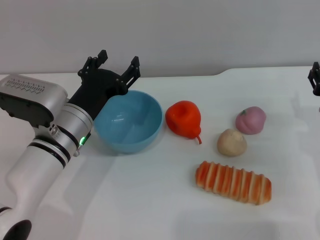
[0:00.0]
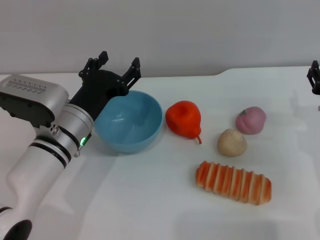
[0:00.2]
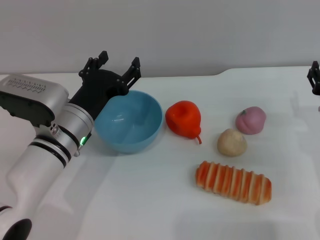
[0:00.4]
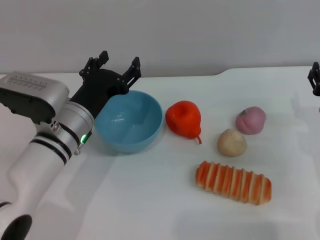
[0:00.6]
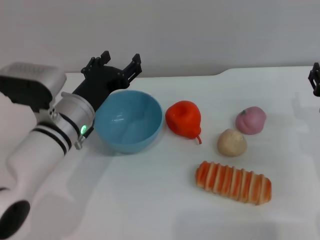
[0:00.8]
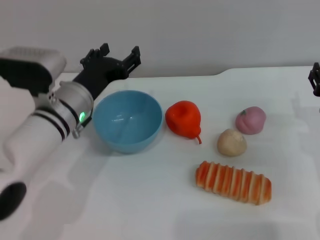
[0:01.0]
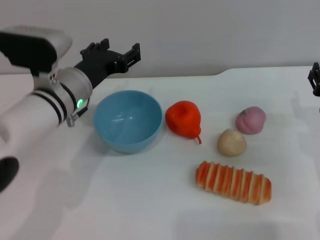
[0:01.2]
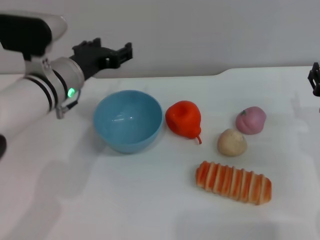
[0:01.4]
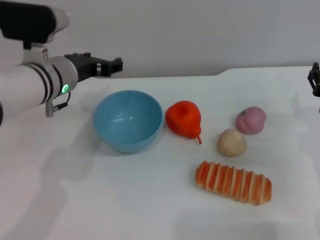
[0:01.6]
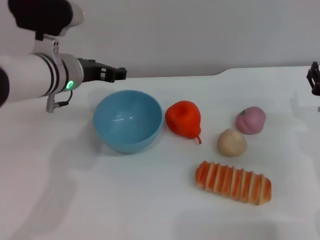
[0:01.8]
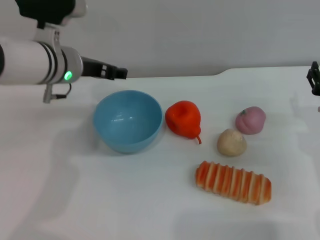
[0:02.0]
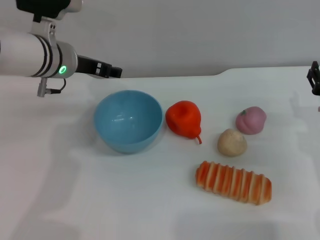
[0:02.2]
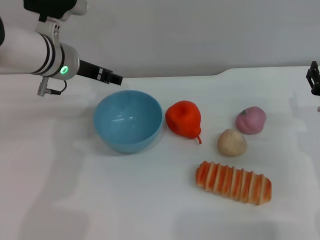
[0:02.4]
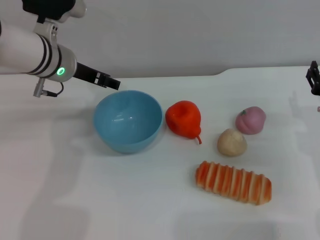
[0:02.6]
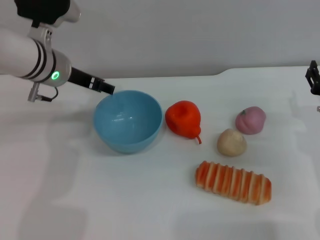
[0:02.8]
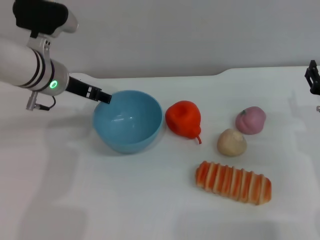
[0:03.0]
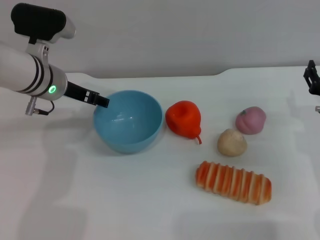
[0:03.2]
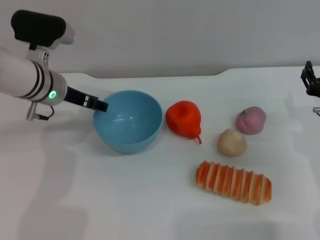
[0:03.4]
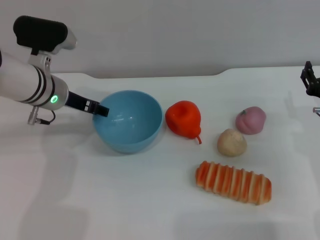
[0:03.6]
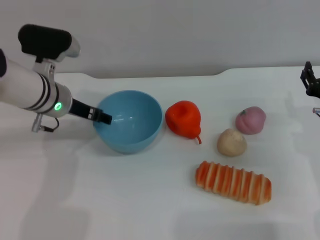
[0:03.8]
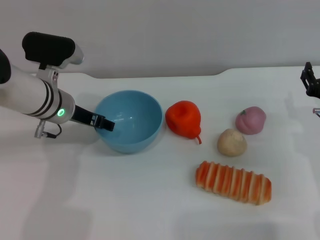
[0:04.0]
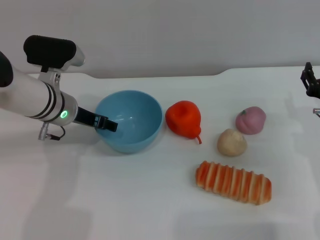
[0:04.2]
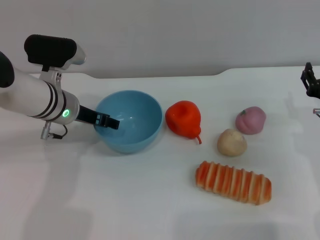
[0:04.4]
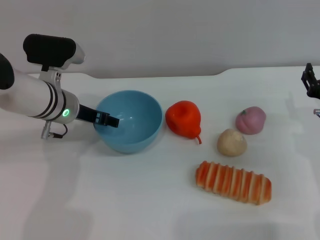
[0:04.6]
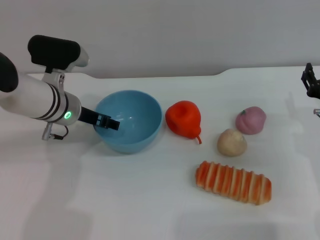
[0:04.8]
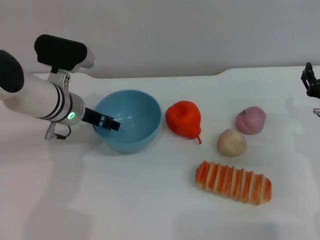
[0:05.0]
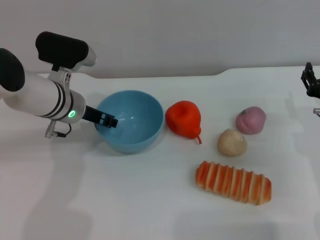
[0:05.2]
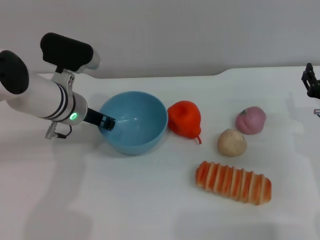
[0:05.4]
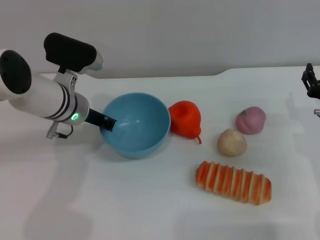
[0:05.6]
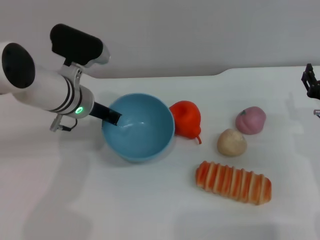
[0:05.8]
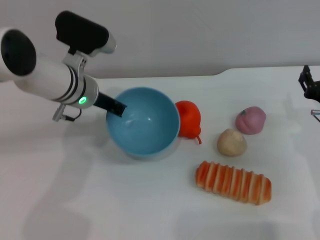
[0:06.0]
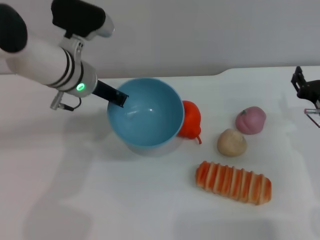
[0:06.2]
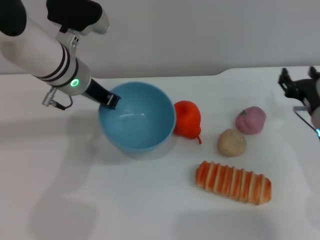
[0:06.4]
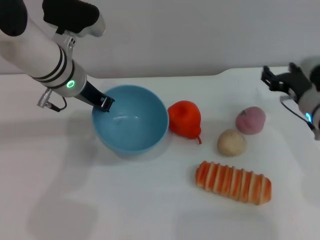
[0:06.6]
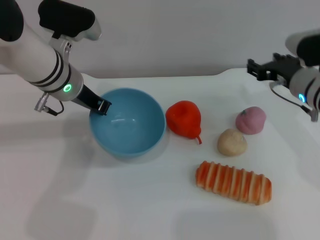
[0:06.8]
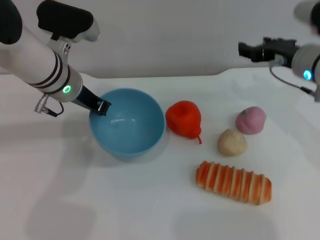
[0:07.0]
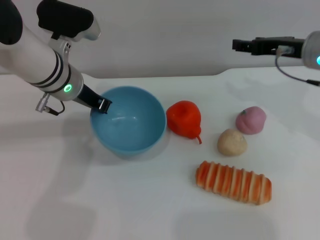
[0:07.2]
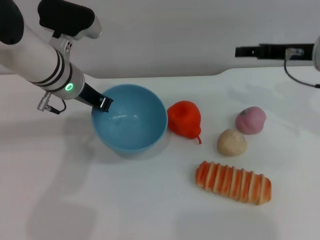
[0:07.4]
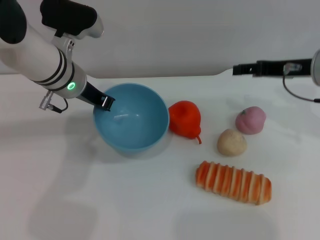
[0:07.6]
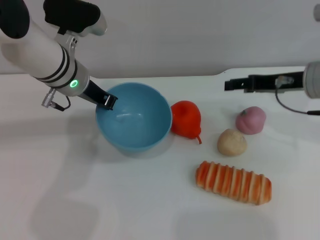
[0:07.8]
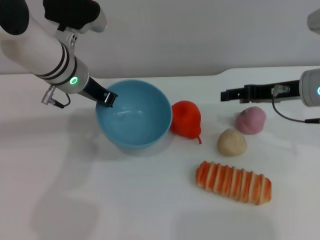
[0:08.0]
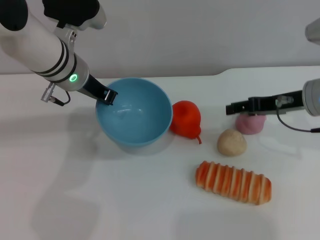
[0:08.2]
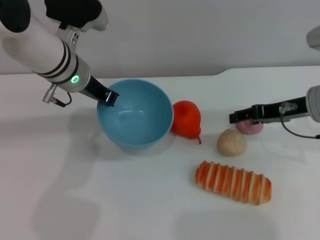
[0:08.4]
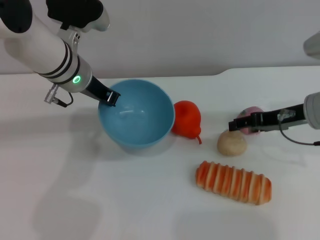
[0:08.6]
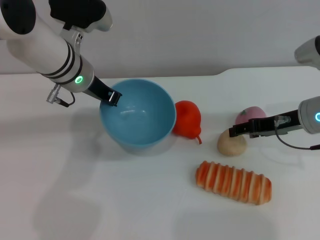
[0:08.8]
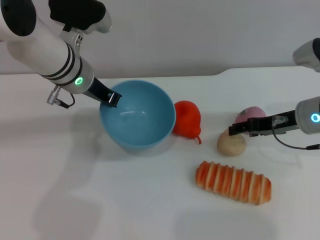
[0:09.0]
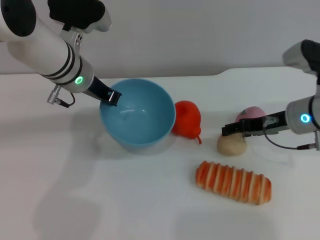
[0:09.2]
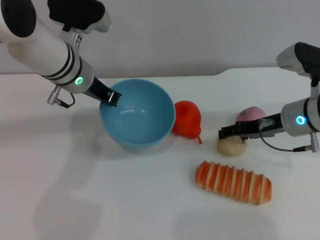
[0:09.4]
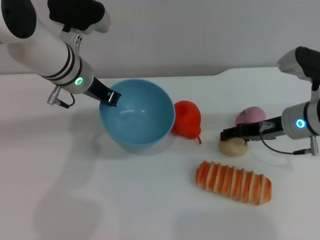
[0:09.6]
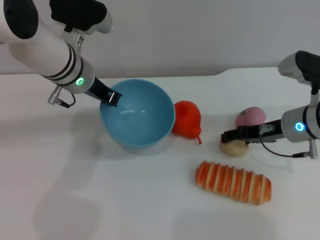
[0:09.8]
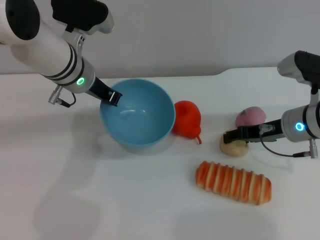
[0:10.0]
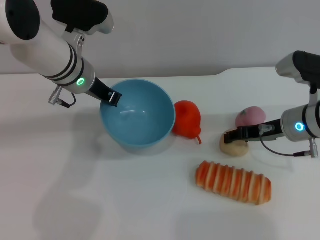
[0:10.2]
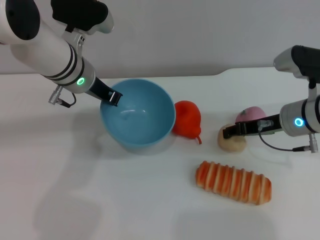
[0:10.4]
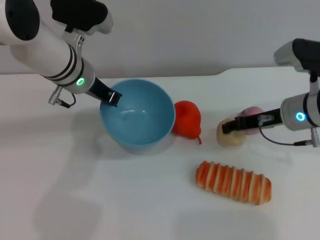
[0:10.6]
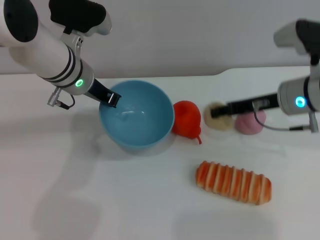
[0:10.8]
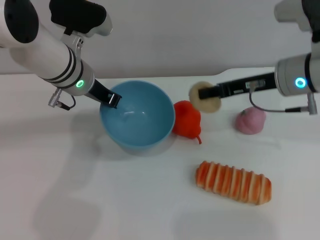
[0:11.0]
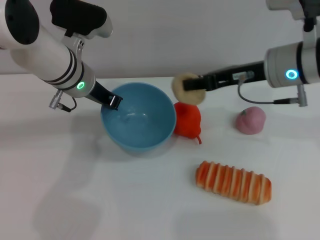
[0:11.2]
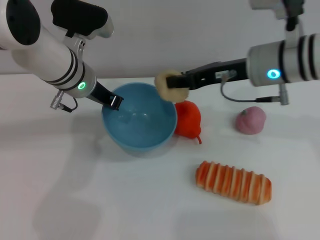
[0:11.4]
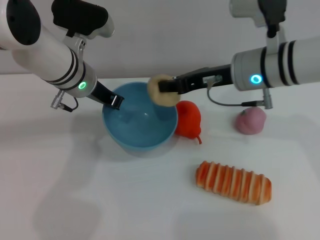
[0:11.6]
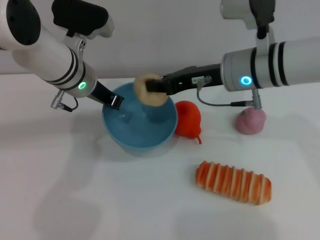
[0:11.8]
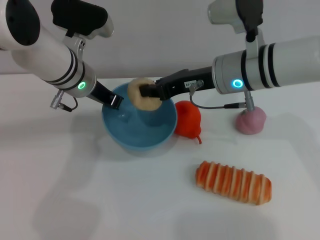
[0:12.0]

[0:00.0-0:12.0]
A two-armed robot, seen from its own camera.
Task of the whole recording: put the egg yolk pastry into the blue bowl and pour it out repeatedly.
Step, 0:00.0 to 0:06.4: Pick up the bowl with the left gripper.
Step, 0:06.6 to 0:10.8: Pick up the egg yolk pastry with the right gripper.
0:00.0 to 0:01.6: The left gripper goes some 10 cm upward and forward.
0:03.0 to 0:04.4: The left gripper changes place by approximately 5 cm.
0:04.4 to 0:06.0: The left gripper closes its fingers.
0:06.0 to 0:07.6: The right gripper shifts roughly 15 cm upward and forward.
0:07.6 to 0:09.0: The right gripper goes about 5 cm downward.
0:09.0 to 0:10.4: The right gripper closes up.
0:10.4 to 0:12.0: The right gripper moves to the left and upward, about 15 cm, and closes its fingers.

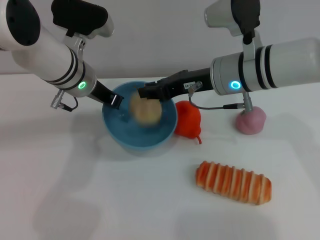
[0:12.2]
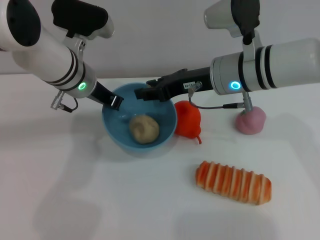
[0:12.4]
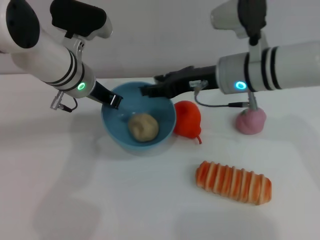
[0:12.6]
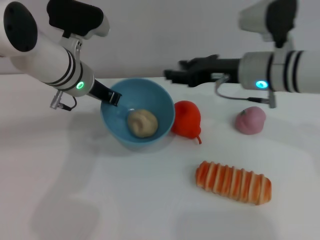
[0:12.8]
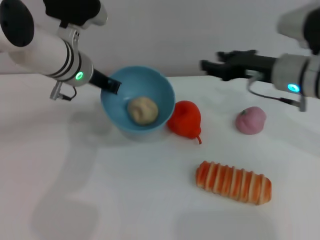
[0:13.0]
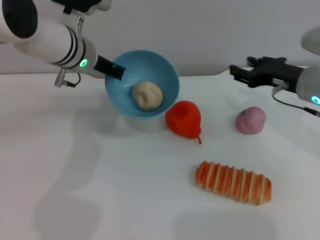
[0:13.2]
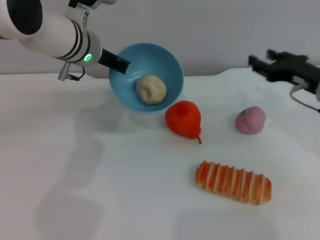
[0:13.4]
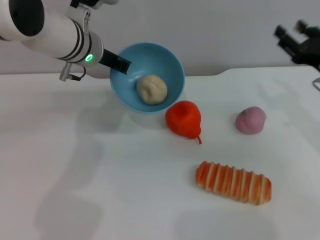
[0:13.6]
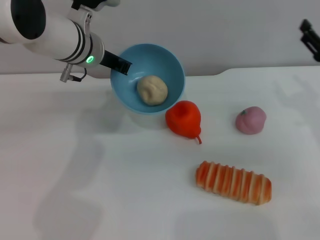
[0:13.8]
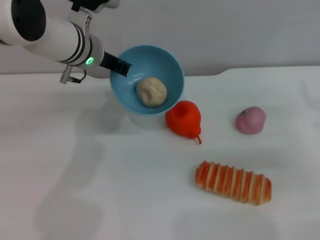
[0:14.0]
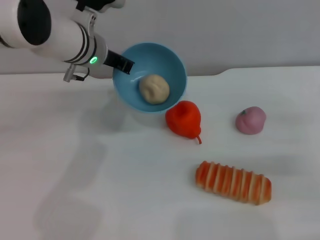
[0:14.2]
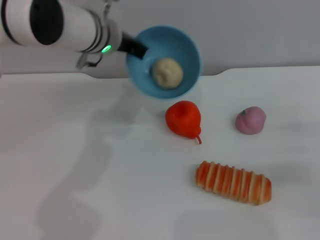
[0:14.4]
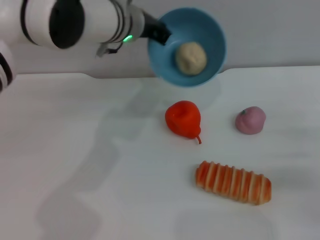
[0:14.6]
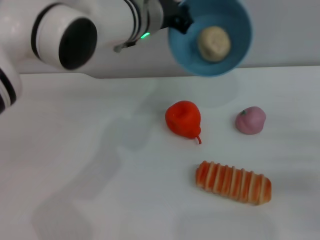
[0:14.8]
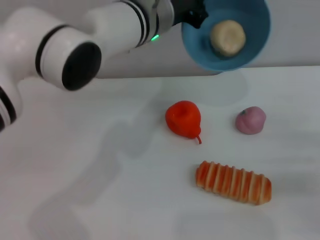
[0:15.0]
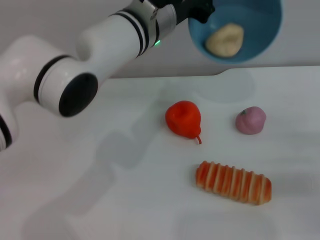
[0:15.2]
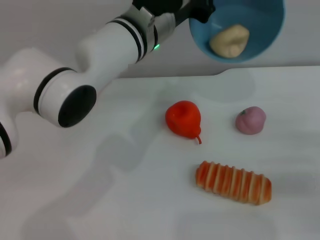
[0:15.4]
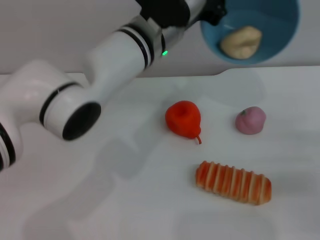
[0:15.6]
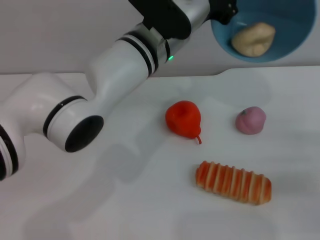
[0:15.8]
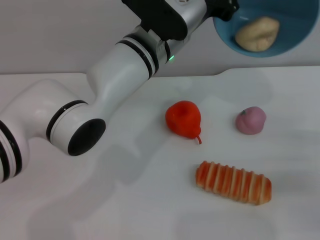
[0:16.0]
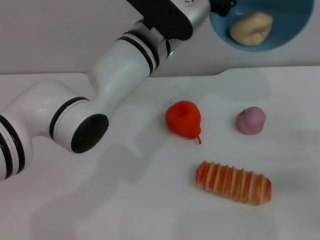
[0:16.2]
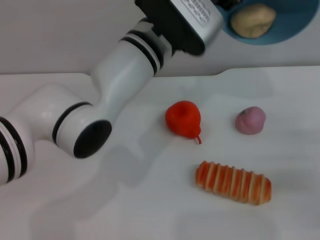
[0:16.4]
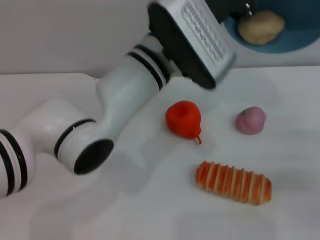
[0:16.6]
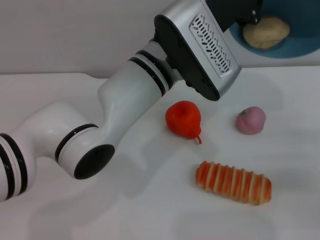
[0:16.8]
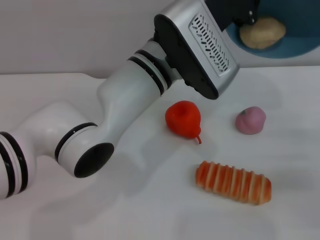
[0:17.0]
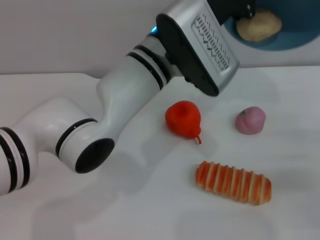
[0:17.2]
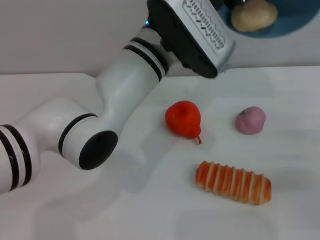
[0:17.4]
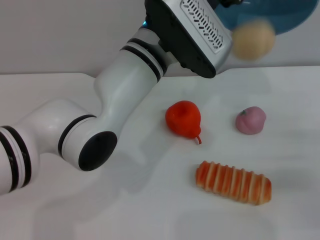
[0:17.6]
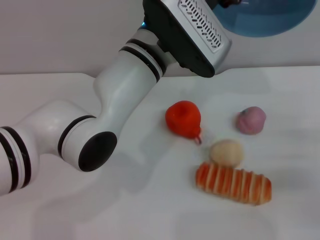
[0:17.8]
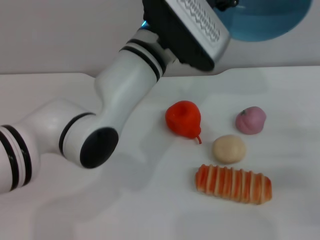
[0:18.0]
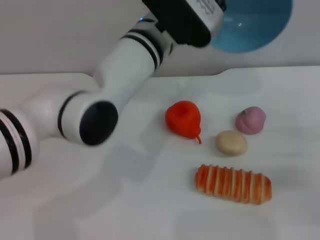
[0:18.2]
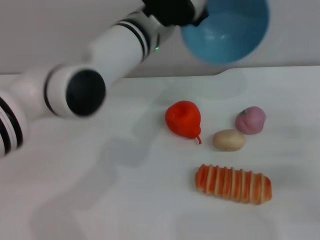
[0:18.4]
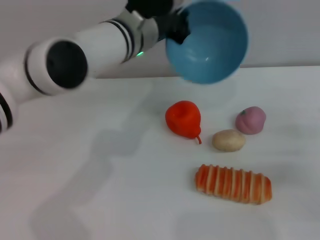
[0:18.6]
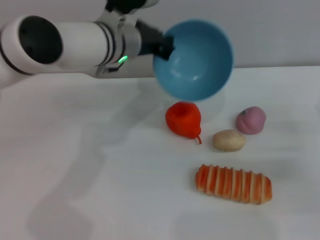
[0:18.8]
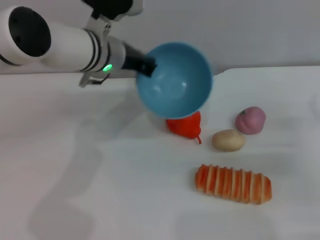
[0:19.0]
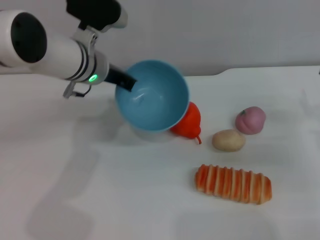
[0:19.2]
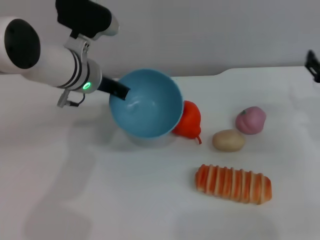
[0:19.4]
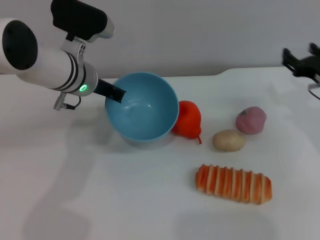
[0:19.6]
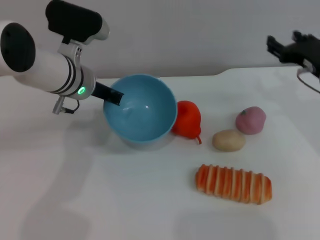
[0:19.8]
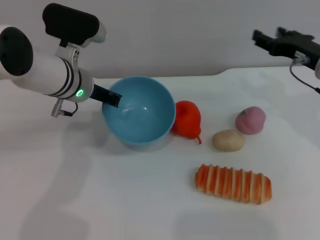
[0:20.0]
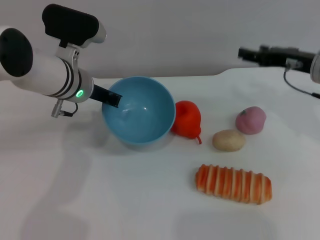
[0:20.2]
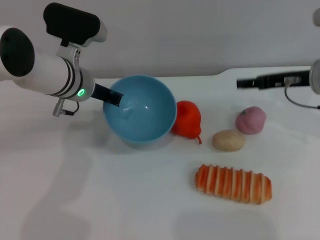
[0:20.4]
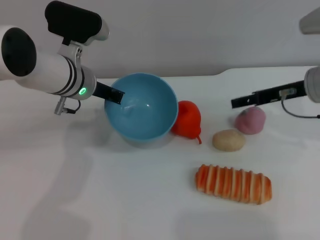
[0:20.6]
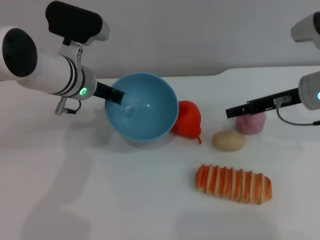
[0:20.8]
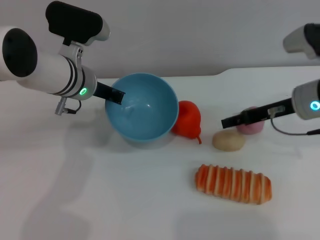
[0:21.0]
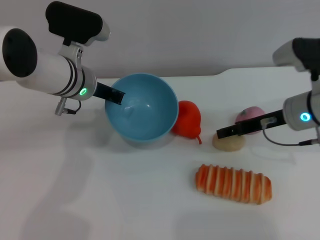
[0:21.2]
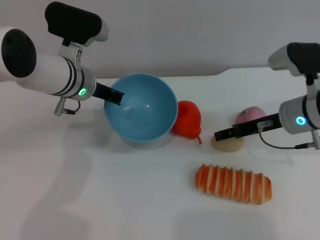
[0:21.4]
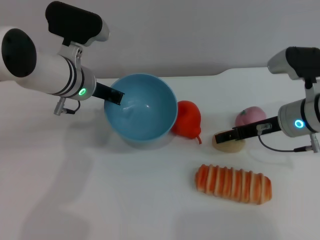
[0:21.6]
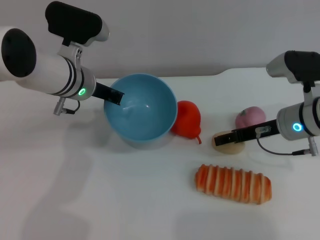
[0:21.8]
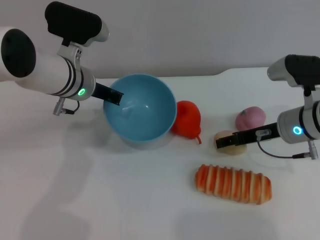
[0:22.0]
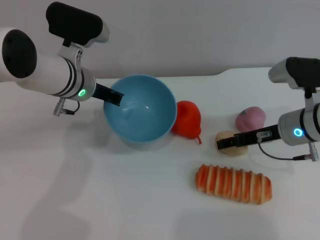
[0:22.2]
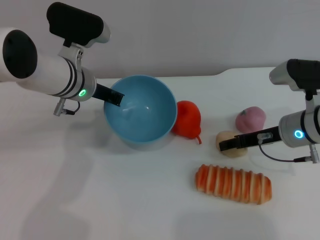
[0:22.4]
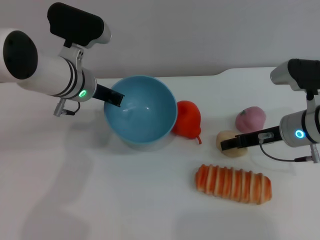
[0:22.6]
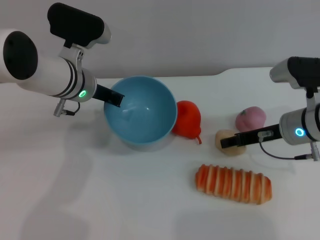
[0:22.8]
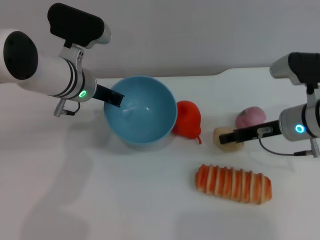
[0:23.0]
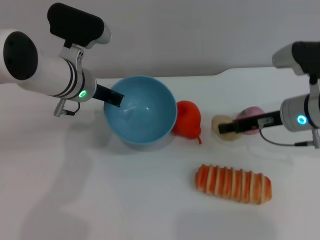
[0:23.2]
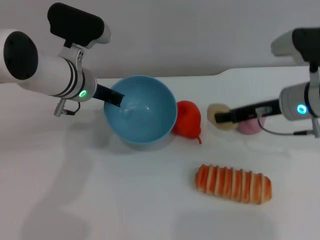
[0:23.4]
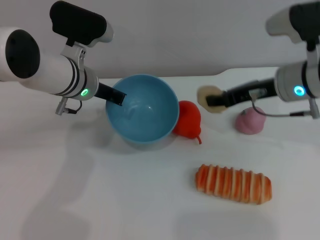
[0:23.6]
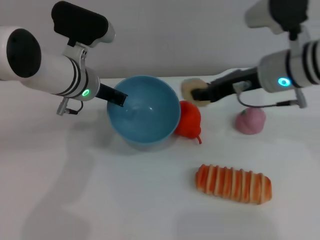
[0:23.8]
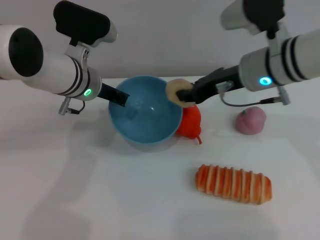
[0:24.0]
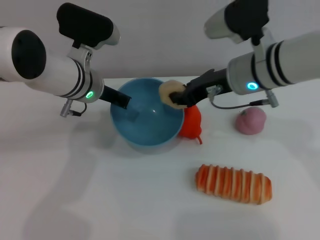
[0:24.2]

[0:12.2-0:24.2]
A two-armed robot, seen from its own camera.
Task of the whole recording: put the egg yolk pastry into the blue bowl and pour it out repeatedly.
Step, 0:12.8 to 0:18.2: Pour the egg yolk pastry out of bowl.
Step, 0:18.6 to 0:23.4: Pick up the egg yolk pastry with the right gripper.
0:12.2 to 0:13.8: The right gripper is displaced to the right by approximately 20 cm, and opens.
0:13.8 to 0:15.2: The left gripper shifts about 10 cm to the right. Meanwhile the right gripper goes some 10 cm backward and downward.
0:15.2 to 0:16.6: The left gripper moves approximately 5 cm.
0:18.2 to 0:19.8: The right gripper is displaced forward, upward and to the left by about 15 cm, while the left gripper goes about 15 cm to the left and downward.
0:21.2 to 0:22.6: There are only small adjustments of the grippers.
0:22.6 to 0:24.2: The right gripper shifts about 15 cm to the left and upward, and closes its fingers.
